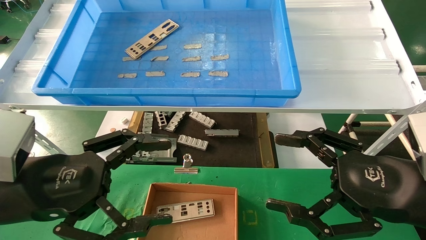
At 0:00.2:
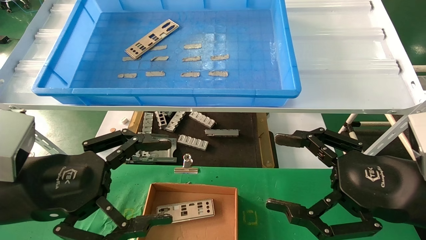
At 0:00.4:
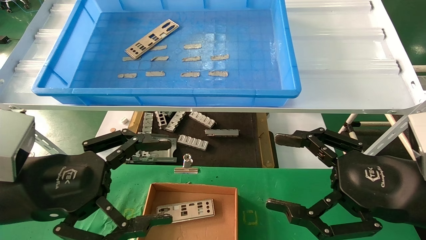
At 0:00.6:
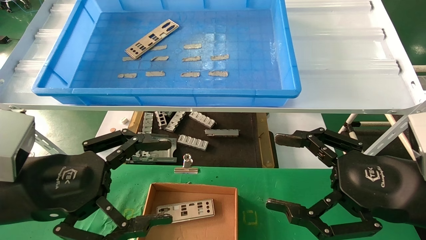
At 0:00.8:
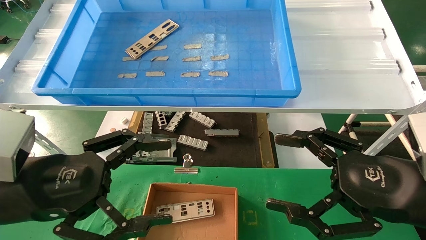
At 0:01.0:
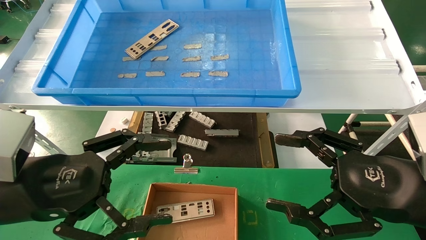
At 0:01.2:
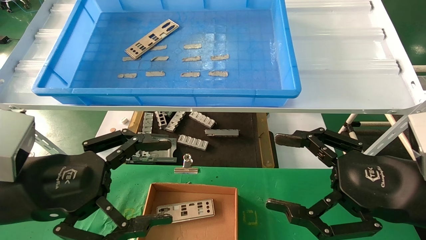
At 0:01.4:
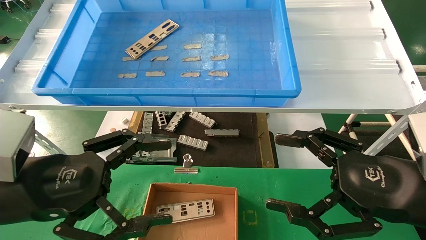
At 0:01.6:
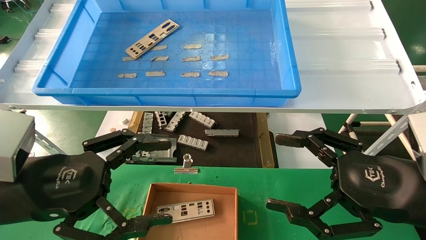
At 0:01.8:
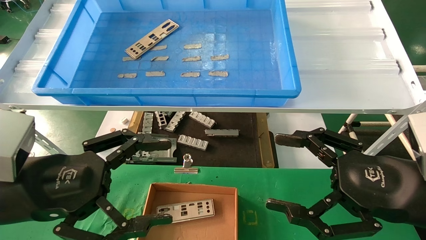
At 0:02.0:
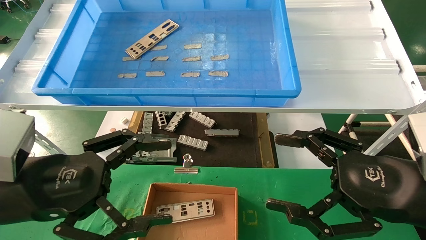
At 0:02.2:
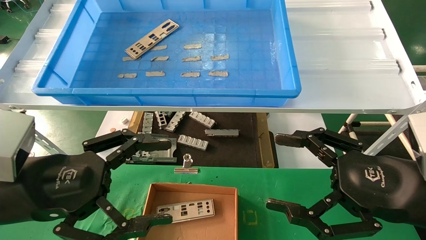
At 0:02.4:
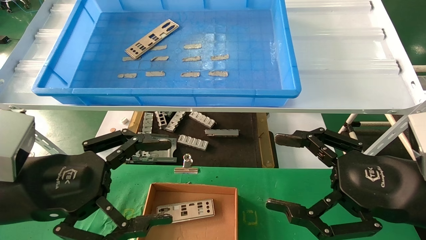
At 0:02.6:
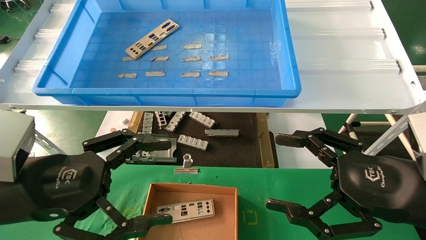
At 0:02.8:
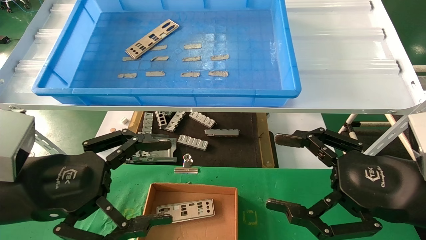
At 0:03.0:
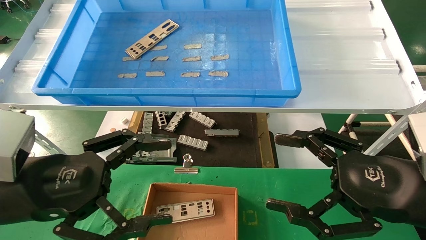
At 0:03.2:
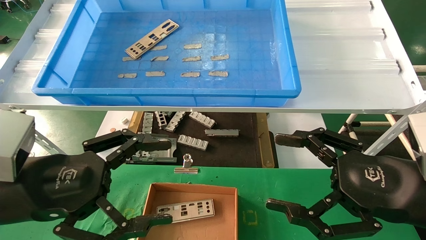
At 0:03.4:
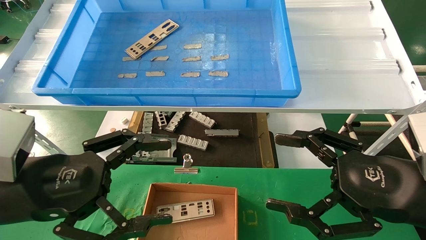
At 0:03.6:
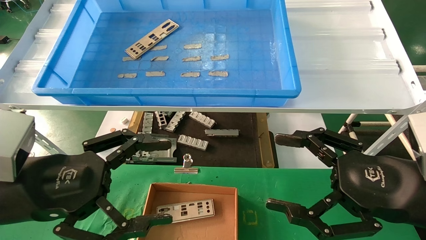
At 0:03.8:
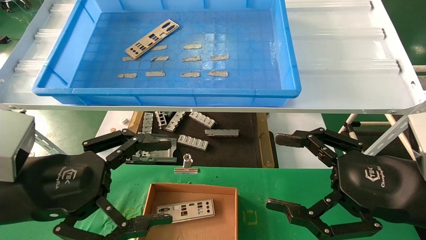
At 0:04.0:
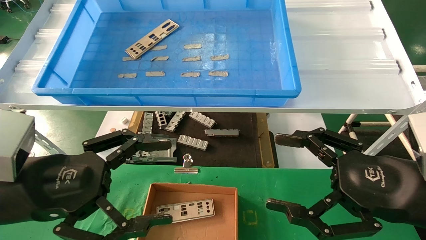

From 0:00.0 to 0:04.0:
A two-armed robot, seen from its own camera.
Task of the whole recording: pick up the parts on the tray and put them in the cardboard box.
From 0:00.0 to 0:04.0: Neither gripper changes place.
